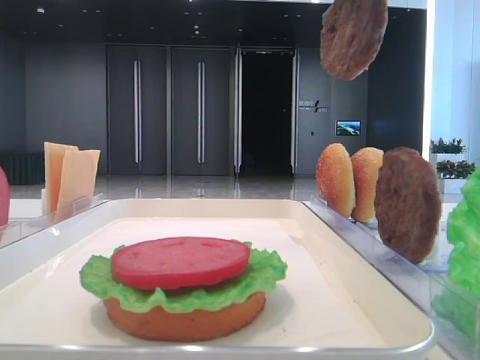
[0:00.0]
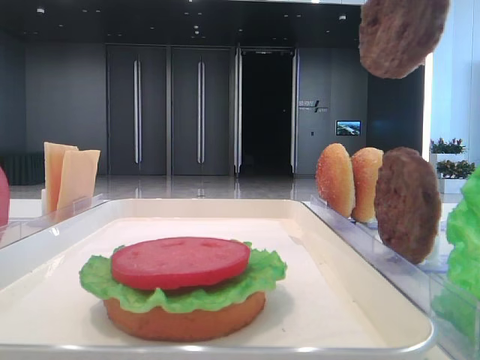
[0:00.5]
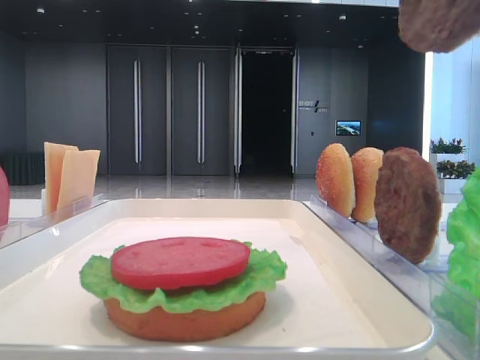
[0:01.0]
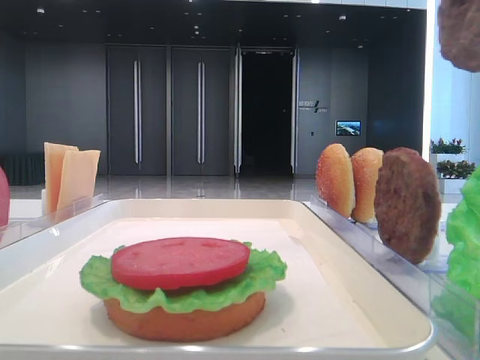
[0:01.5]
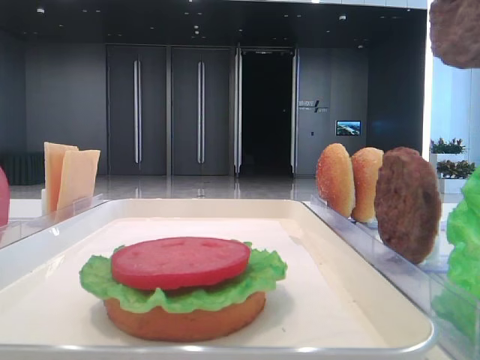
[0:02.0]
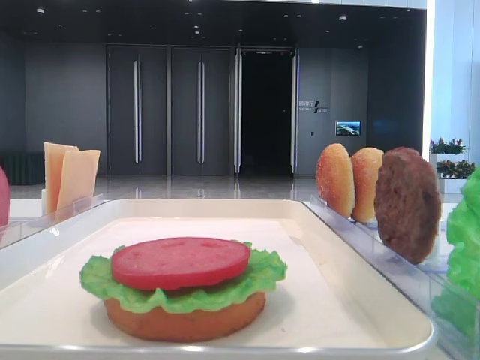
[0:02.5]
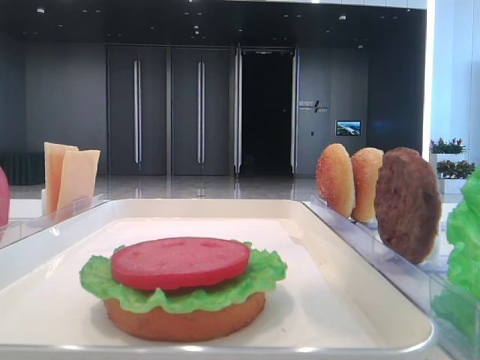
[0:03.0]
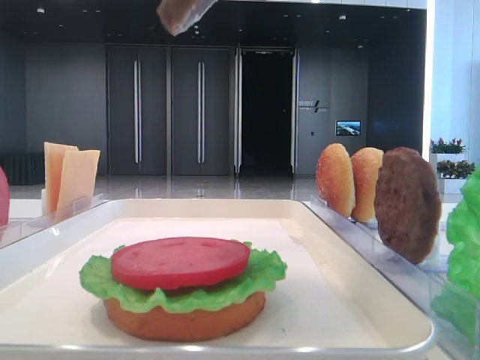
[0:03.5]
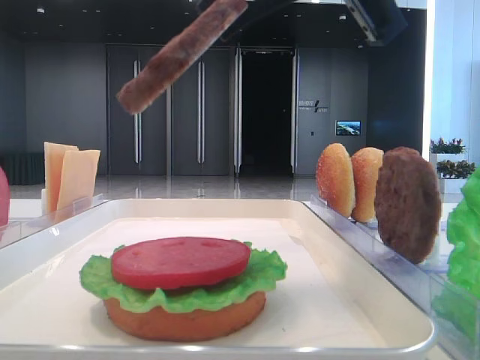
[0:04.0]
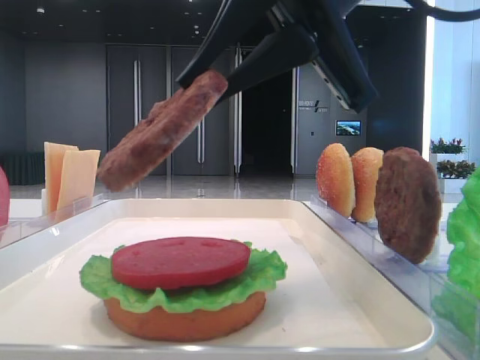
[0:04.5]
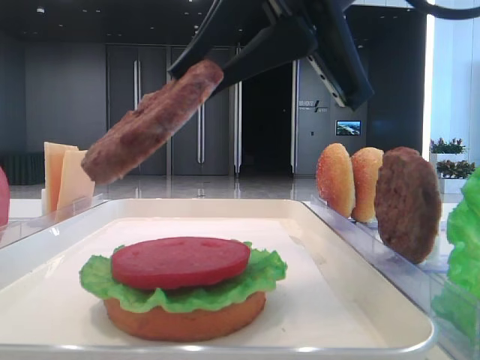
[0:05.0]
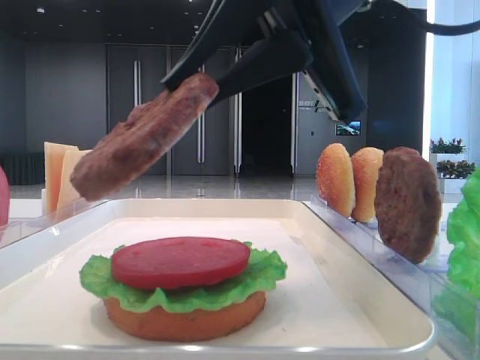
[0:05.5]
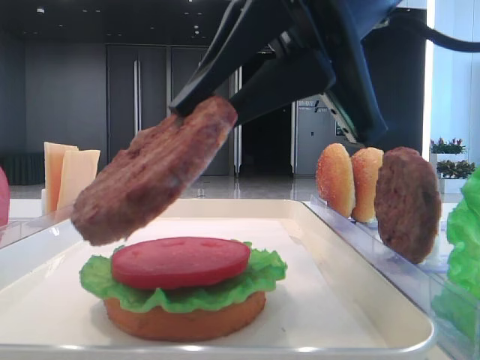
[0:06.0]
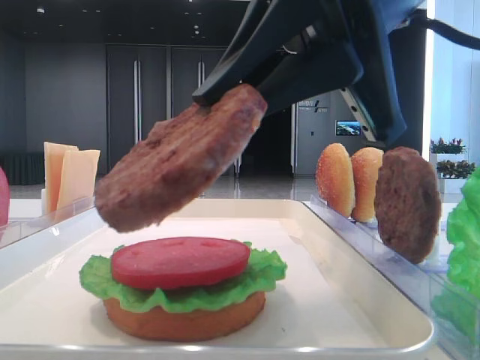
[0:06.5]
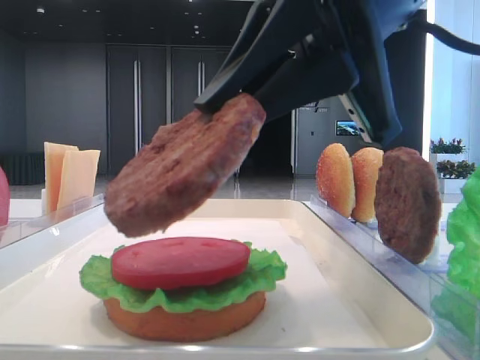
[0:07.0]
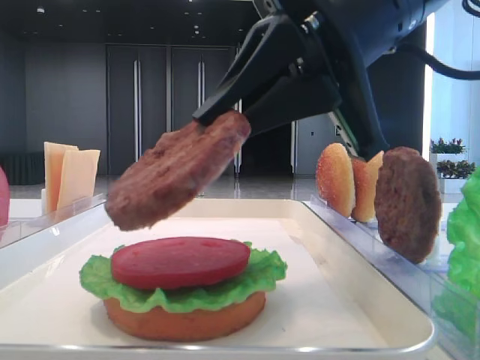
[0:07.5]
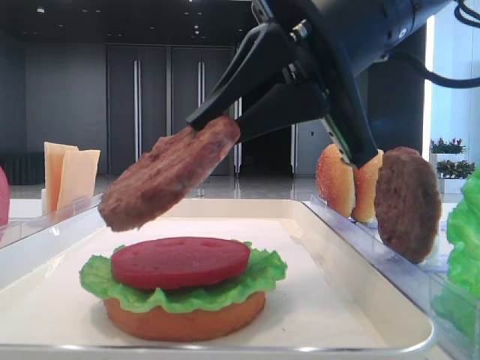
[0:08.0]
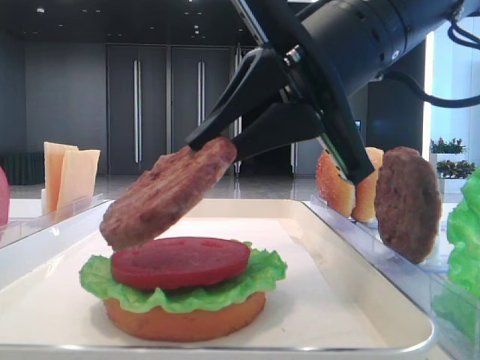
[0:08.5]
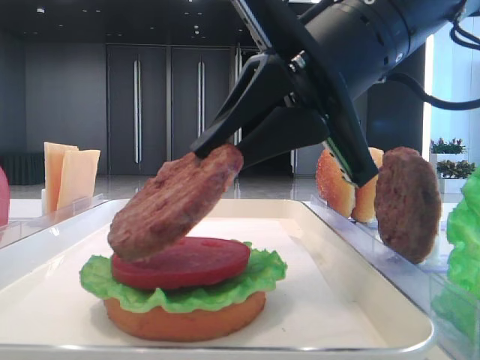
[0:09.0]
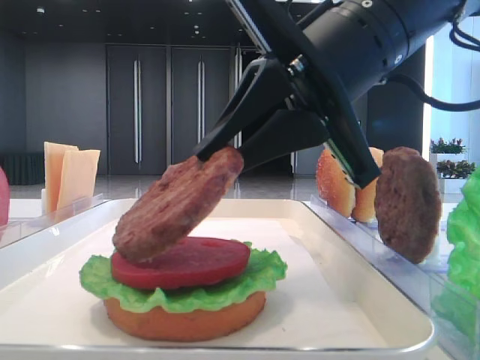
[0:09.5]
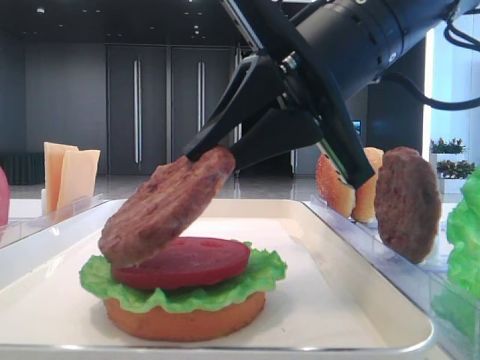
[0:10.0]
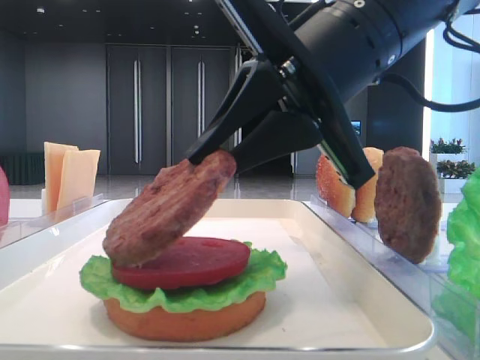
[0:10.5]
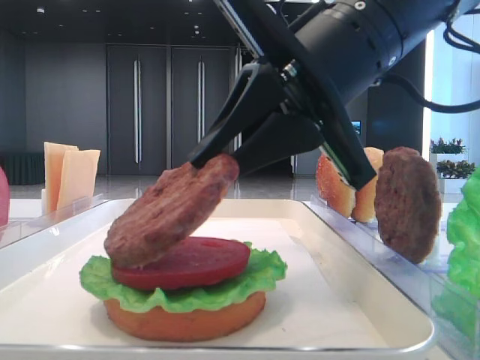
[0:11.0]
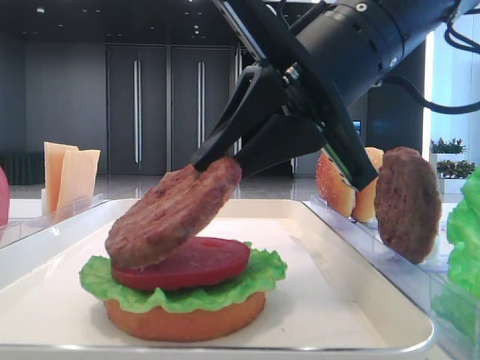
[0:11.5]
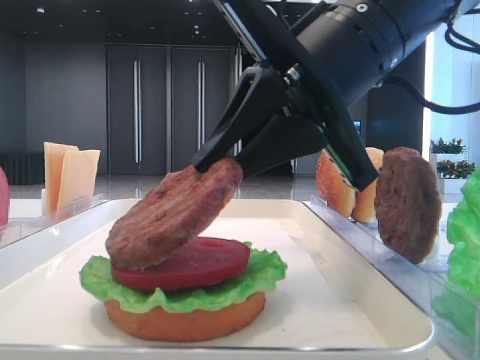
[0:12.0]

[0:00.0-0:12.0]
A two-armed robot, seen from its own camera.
0:00.0 to 0:02.0: The right gripper goes some 15 cm backward and to the right.
0:02.0 to 0:04.0: The right gripper travels to the left, downward and forward by about 15 cm.
0:04.0 to 0:06.0: The right gripper shifts roughly 5 cm downward.
0:06.0 to 0:10.0: The grippers stay close to where they were, moving slightly.
0:10.0 to 0:12.0: Both grippers stay about where they are.

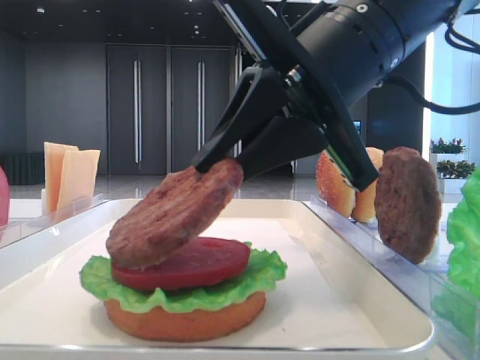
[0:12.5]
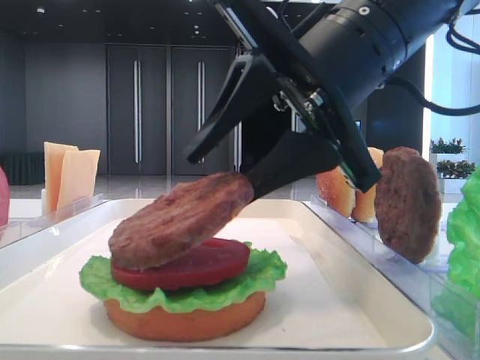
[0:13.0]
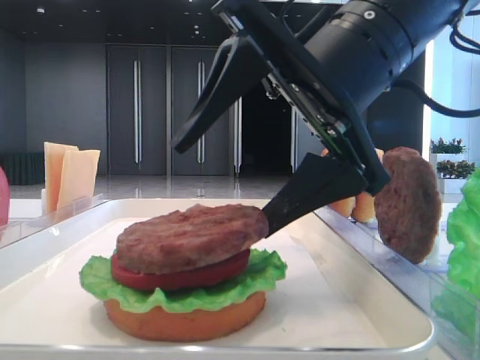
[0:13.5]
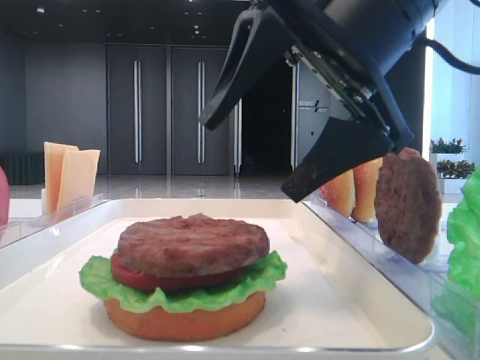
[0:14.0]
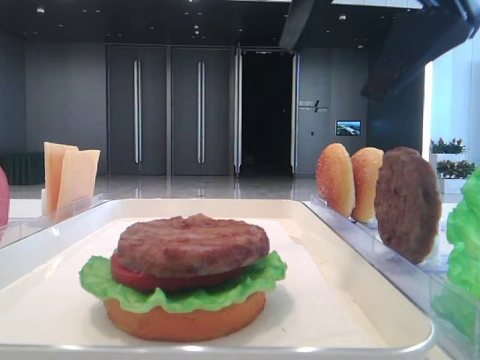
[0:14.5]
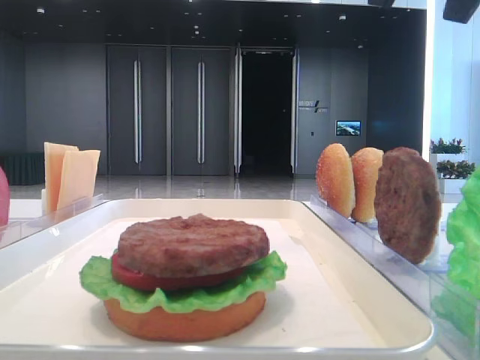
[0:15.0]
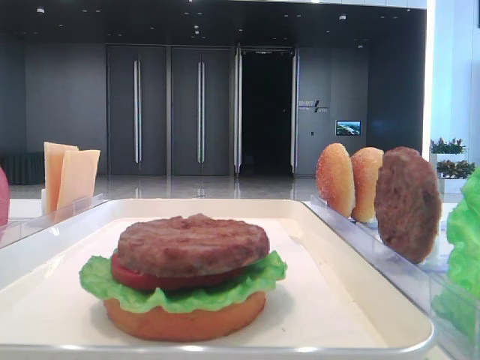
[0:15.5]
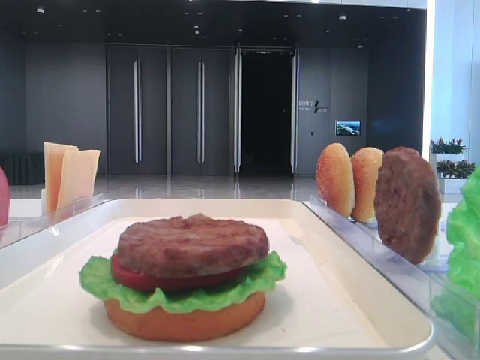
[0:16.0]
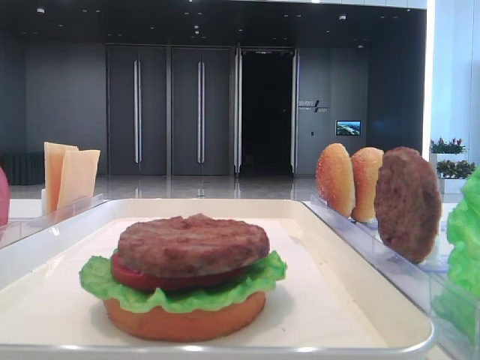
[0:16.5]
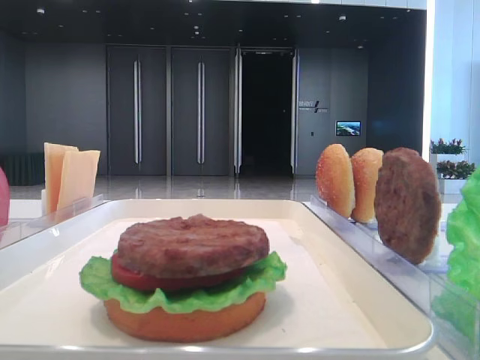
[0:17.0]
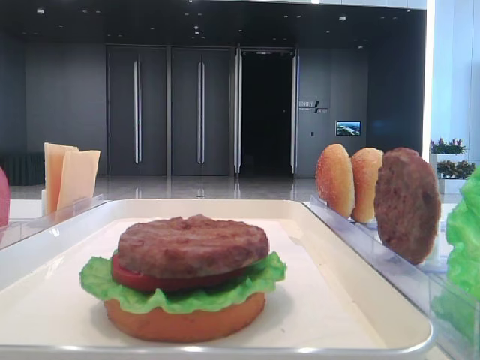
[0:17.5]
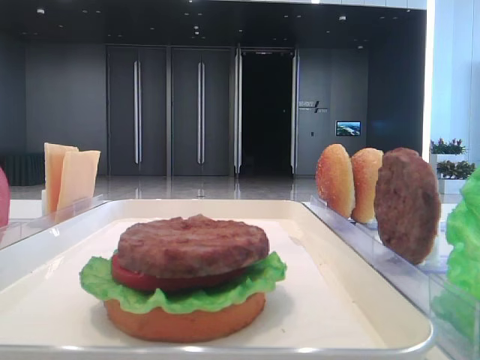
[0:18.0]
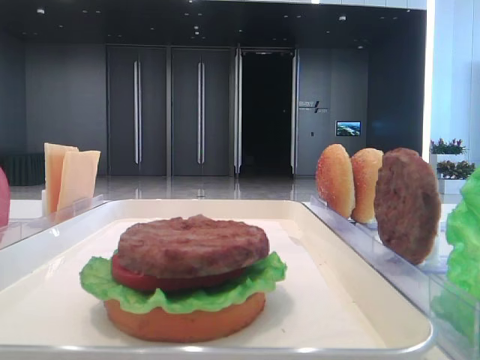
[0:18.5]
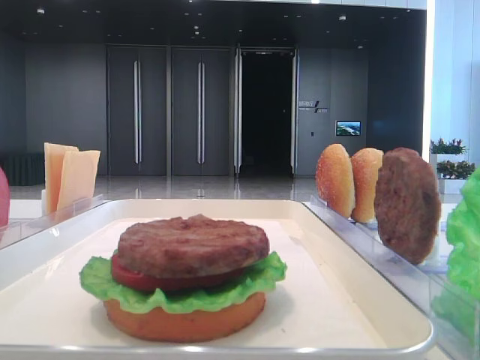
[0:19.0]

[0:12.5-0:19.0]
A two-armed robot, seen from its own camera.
0:12.5 to 0:14.5: The right gripper goes about 10 cm upward, and opens up.
0:14.5 to 0:17.0: The right gripper travels to the right, upward and backward by roughly 25 cm.

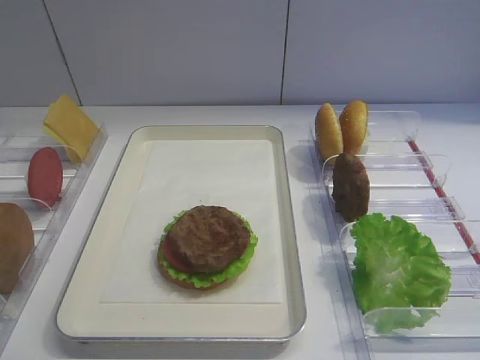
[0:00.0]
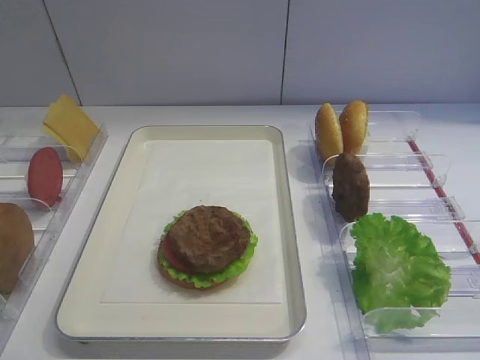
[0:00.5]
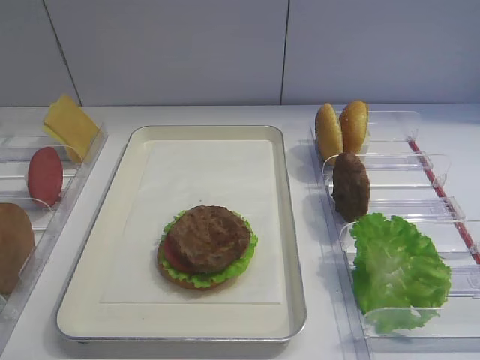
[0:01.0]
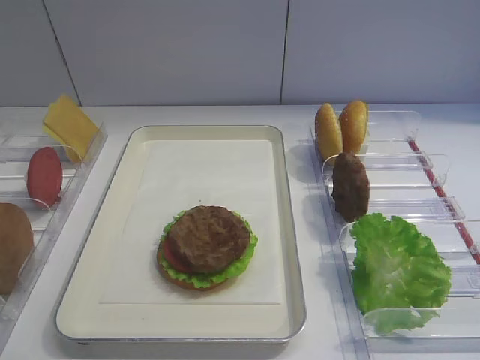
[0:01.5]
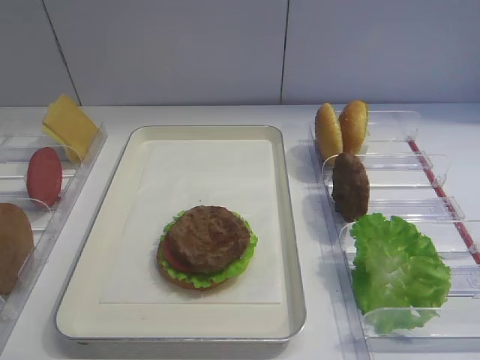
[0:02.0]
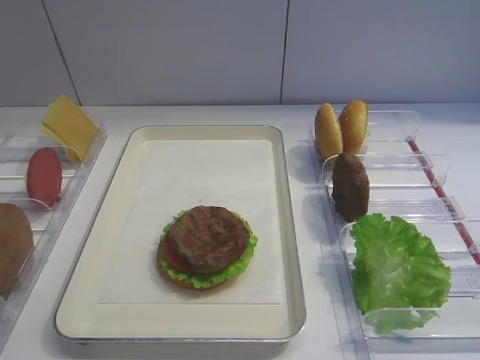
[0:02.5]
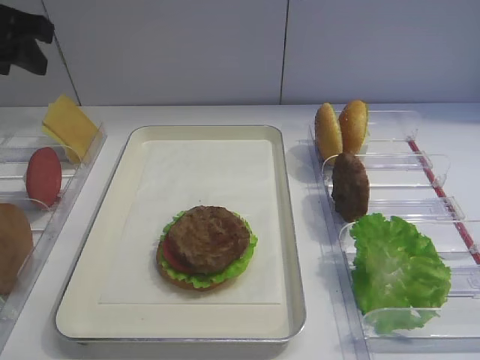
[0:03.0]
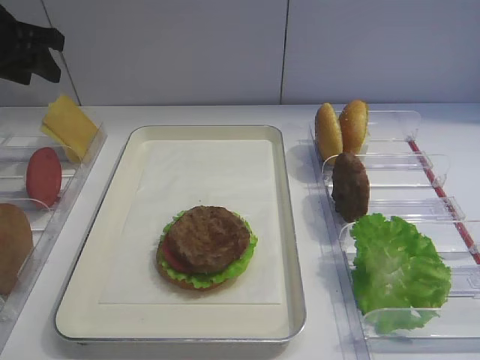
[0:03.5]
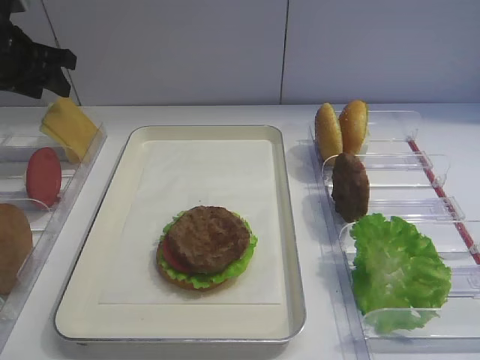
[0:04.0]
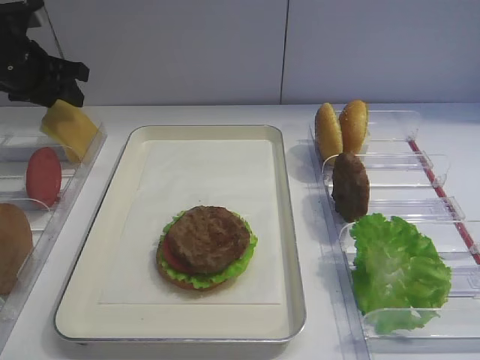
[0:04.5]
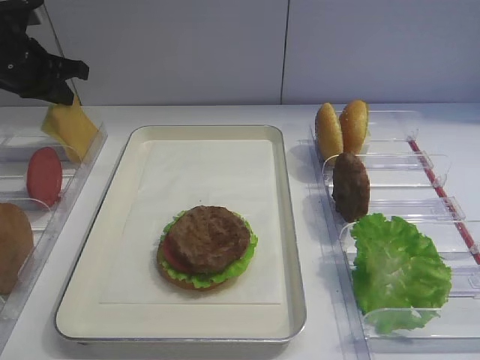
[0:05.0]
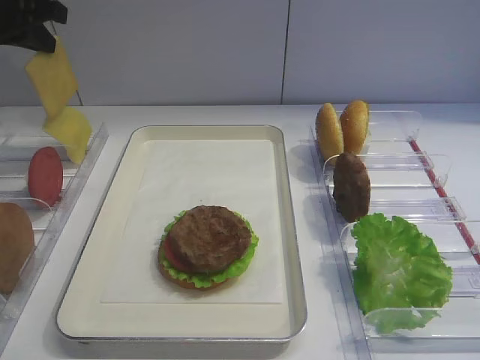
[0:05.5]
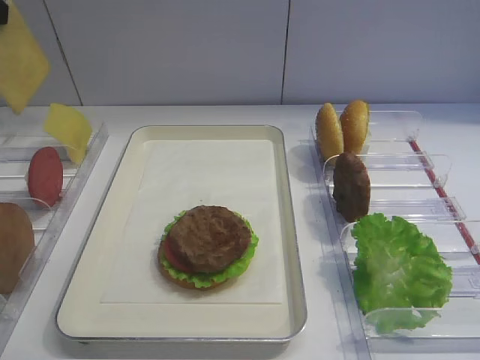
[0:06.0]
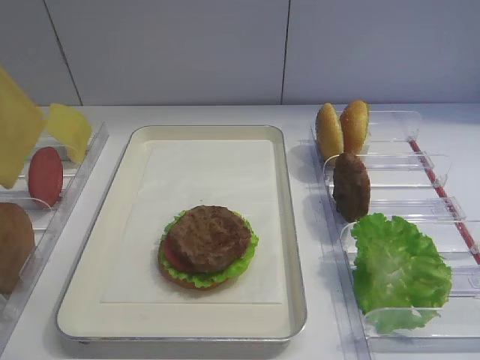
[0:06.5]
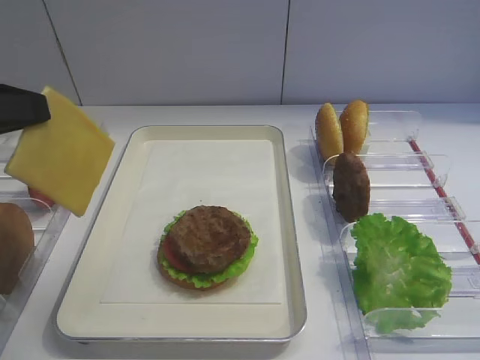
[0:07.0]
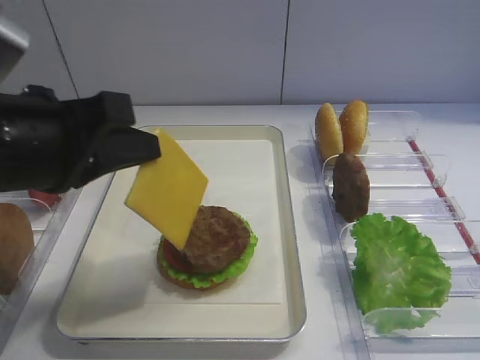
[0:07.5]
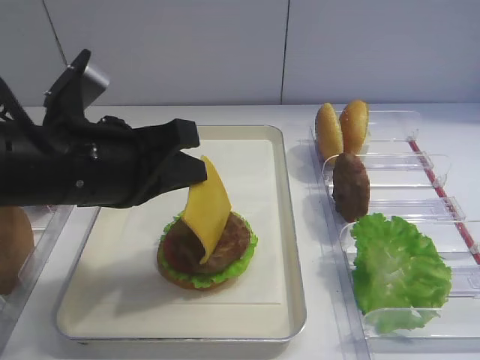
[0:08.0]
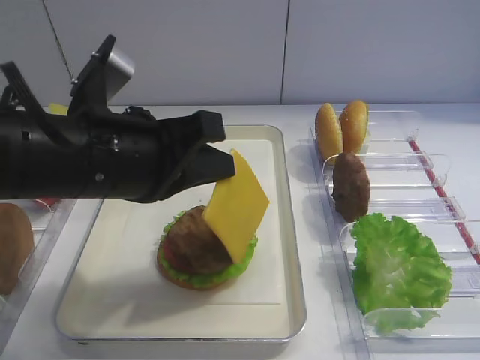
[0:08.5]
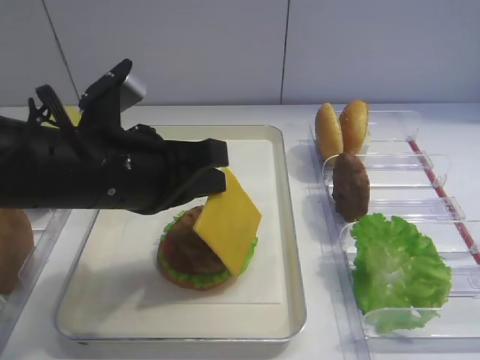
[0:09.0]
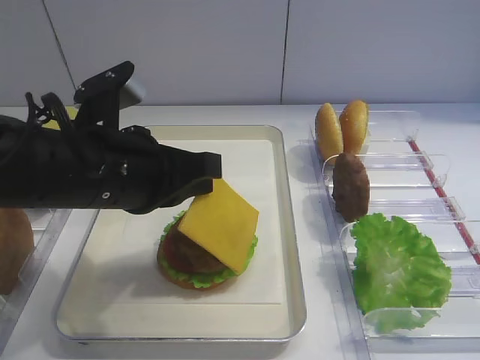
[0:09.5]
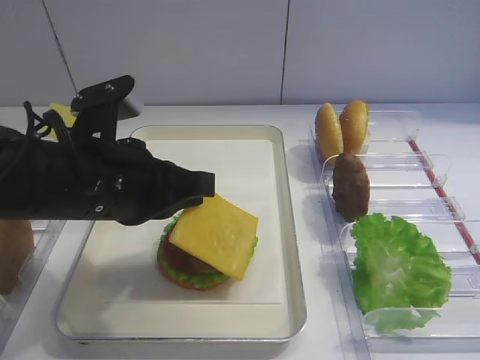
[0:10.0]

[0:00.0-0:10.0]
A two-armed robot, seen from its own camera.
Step, 0:00.0 to 0:05.5: Pick up the cheese slice with the left gripper.
0:02.0 to 0:04.0: The left gripper travels forward by roughly 40 cm.
0:04.0 to 0:06.0: The left gripper moves backward and upward, approximately 20 cm, and closes up.
0:06.0 to 0:08.0: The left gripper shifts approximately 20 cm to the right, downward and backward.
0:08.0 to 0:10.0: The grippers move only a little.
